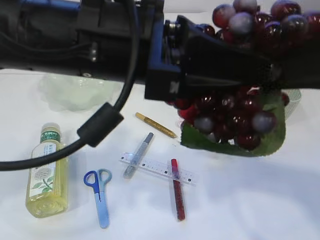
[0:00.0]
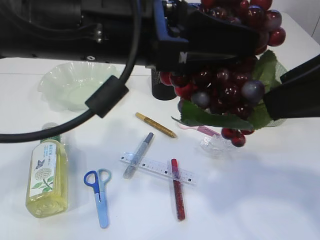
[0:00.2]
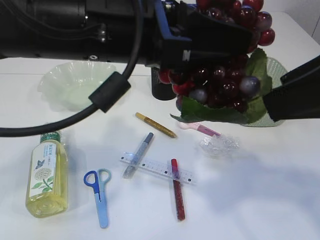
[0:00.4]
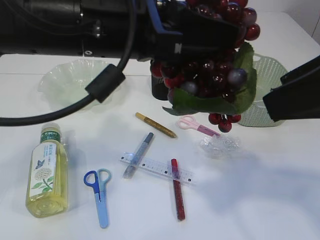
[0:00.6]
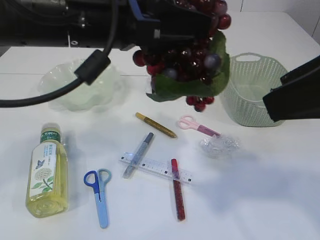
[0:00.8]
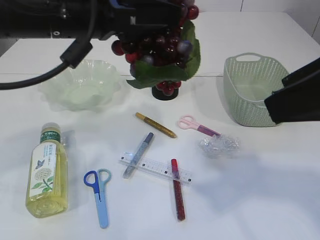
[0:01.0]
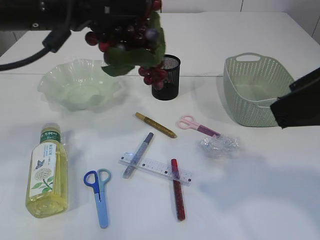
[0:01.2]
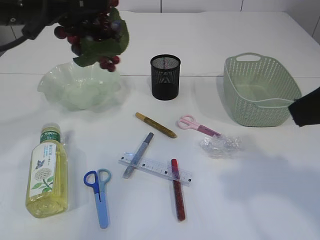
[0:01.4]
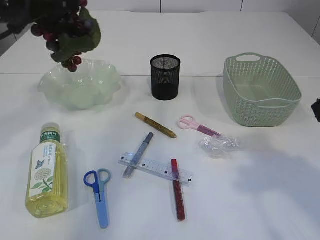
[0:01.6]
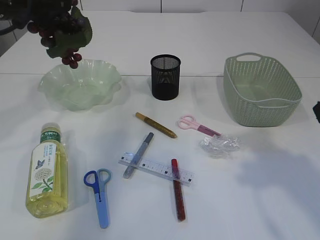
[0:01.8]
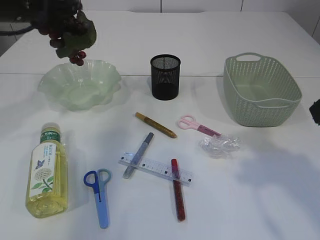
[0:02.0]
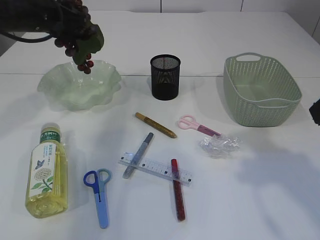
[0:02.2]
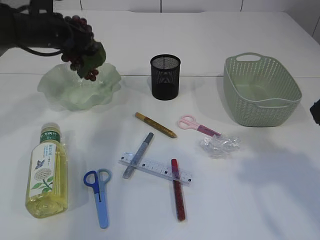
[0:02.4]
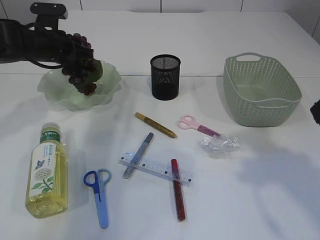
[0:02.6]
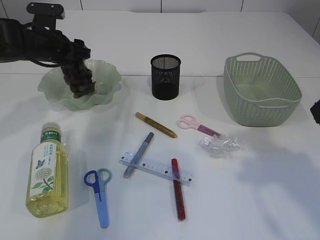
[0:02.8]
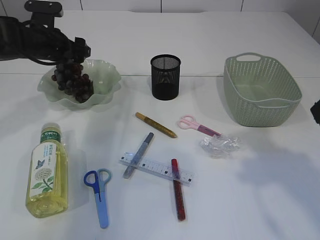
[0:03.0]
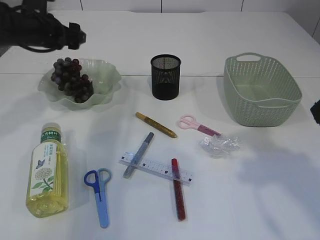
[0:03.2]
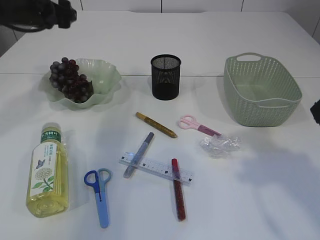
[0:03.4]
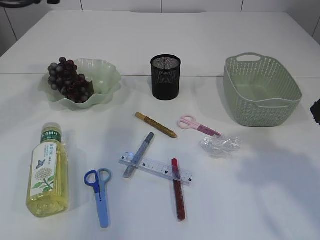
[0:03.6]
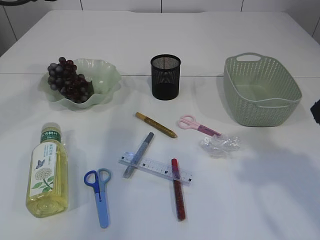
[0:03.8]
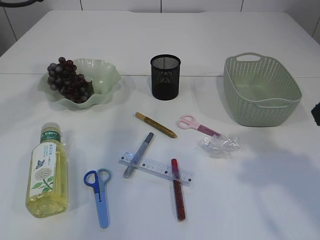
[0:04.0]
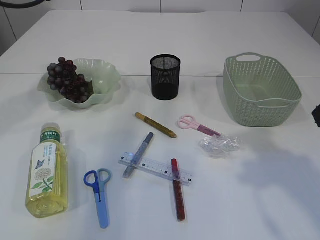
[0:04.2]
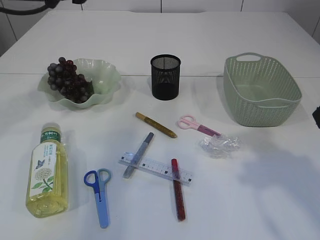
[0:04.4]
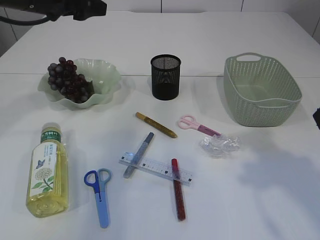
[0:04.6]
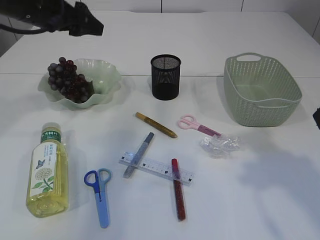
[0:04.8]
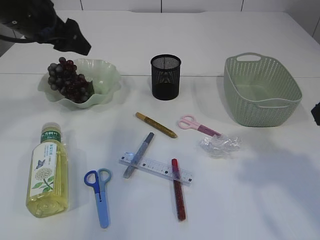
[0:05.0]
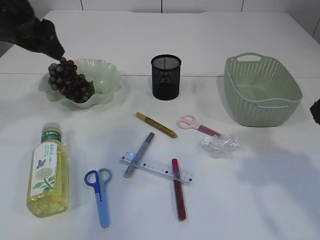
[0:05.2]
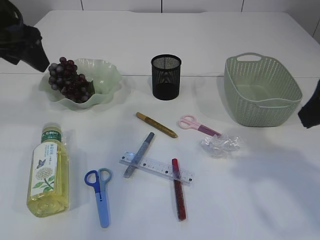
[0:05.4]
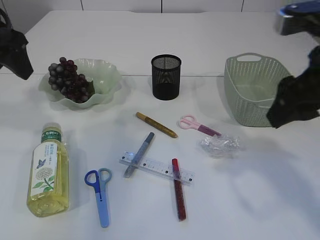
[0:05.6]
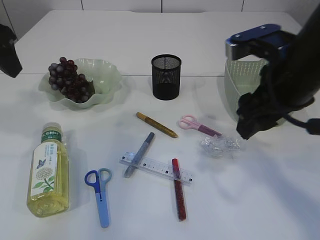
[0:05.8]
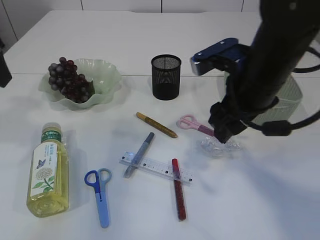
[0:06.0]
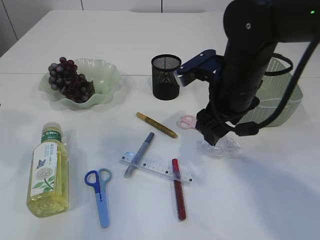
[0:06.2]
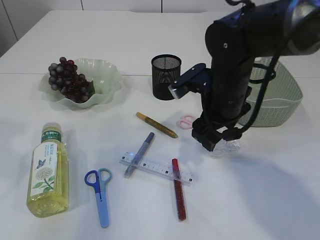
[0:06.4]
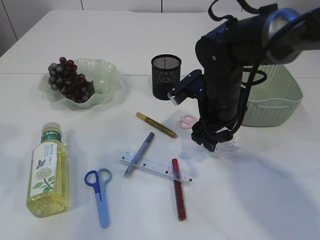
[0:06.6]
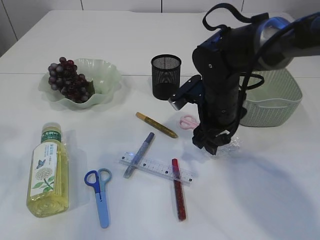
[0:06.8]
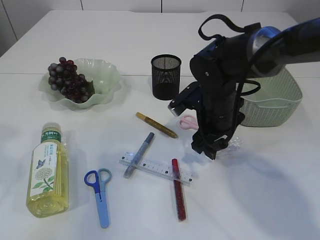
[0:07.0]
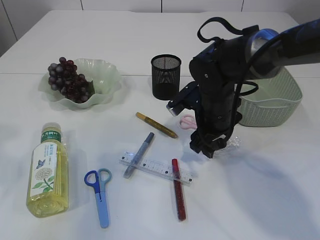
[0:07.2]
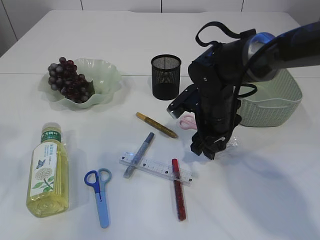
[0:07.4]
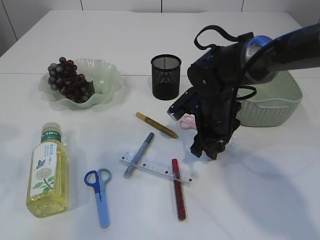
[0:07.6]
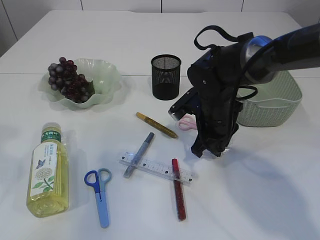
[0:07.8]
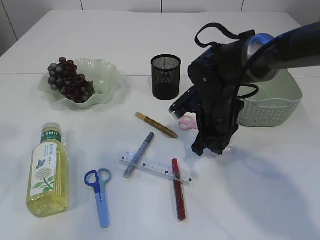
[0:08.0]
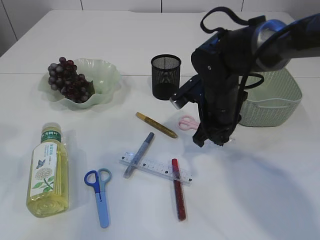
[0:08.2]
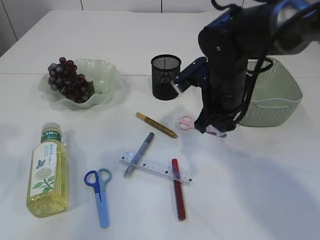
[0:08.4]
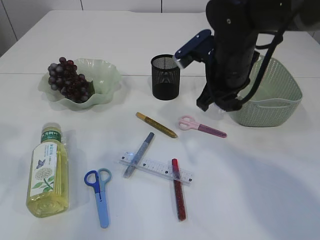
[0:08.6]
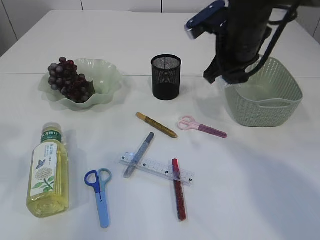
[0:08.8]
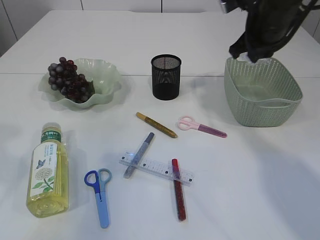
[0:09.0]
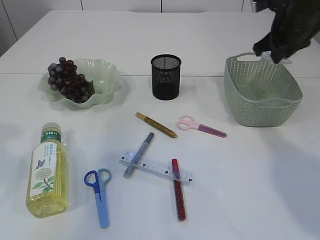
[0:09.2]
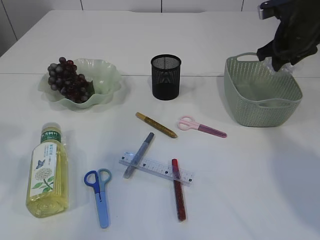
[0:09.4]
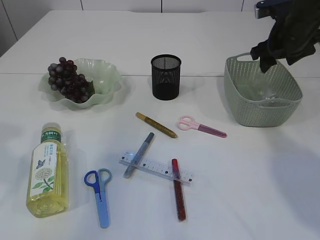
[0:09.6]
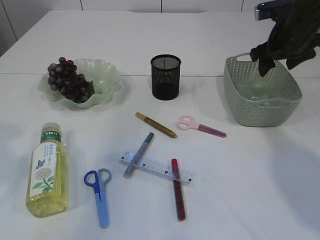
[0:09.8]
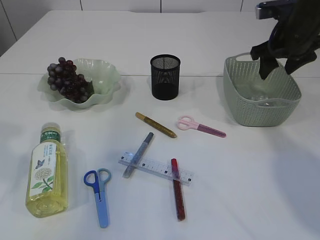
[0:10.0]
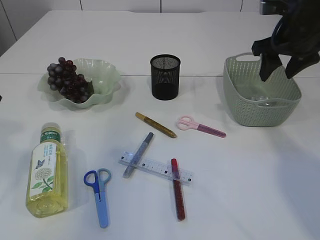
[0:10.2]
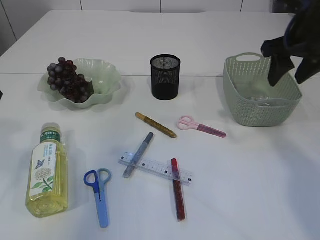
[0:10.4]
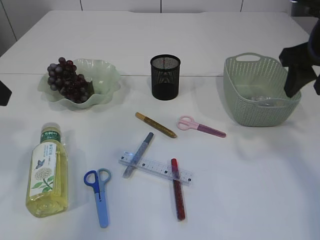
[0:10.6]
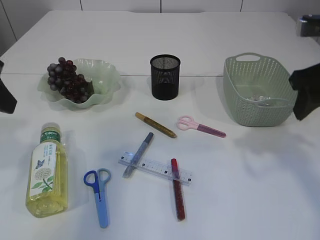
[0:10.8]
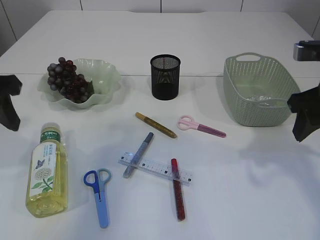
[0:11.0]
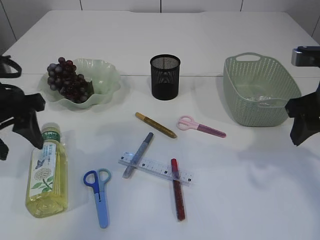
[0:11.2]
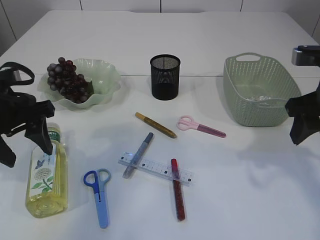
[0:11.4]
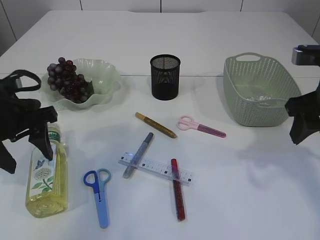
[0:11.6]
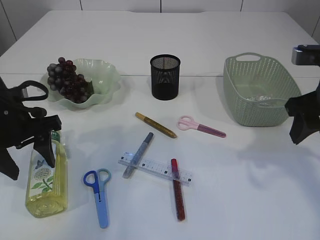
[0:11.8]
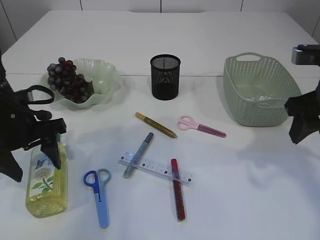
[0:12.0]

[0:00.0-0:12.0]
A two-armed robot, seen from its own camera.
Step, 1.0 to 3.2 s: Place the grapes in the plate.
Step, 3.4 to 8.6 s: Pick up the plastic.
Step, 8.8 to 11.0 s: Place the plastic in the basket.
0.0 to 1.6 s: The left gripper goes about 20 cm to the left and forward.
1.6 to 3.0 s: The left gripper shifts about 20 cm forward and downward, and opens its fingers.
3.0 to 4.4 s: The left gripper moves upward and backward, some 15 cm.
4.4 to 6.0 s: The left gripper is displaced backward by some 15 cm. Meanwhile the right gripper moves forward, to the left and downward, roughly 15 cm.
6.0 to 7.6 s: The left gripper goes about 10 cm backward, while the right gripper moves downward and forward, approximately 15 cm.
7.6 to 9.0 s: The right gripper moves upward and to the right, roughly 20 cm, and closes up.
9.0 to 10.4 s: The right gripper heads to the right, covering some 5 cm, and opens.
10.4 to 12.0 s: The left gripper is displaced downward and forward by about 20 cm. Meanwhile the right gripper goes some 10 cm backward.

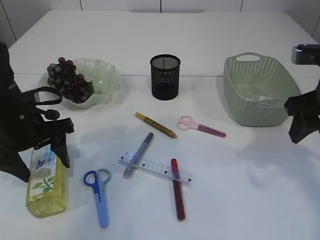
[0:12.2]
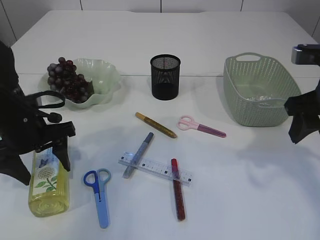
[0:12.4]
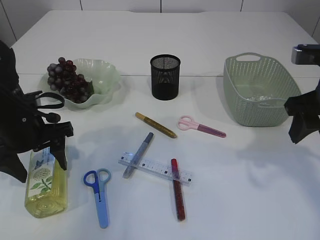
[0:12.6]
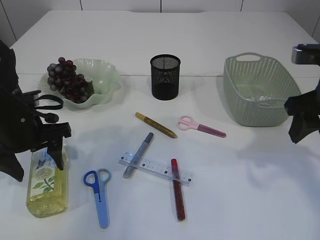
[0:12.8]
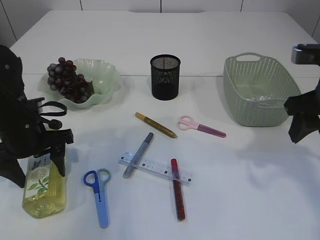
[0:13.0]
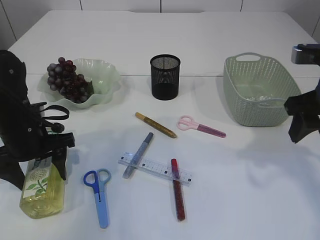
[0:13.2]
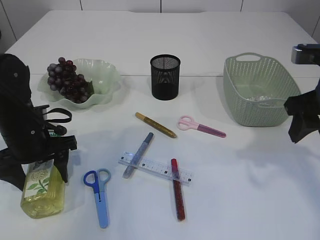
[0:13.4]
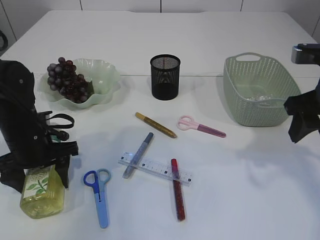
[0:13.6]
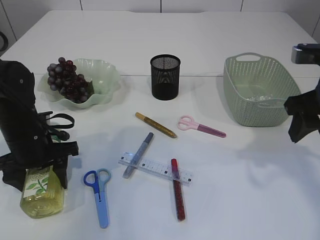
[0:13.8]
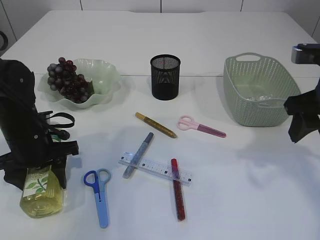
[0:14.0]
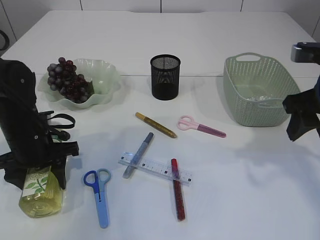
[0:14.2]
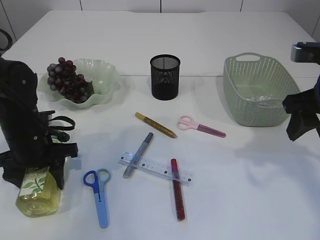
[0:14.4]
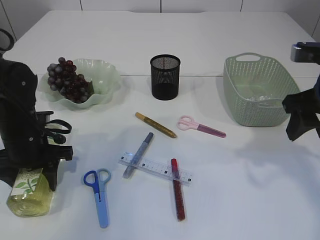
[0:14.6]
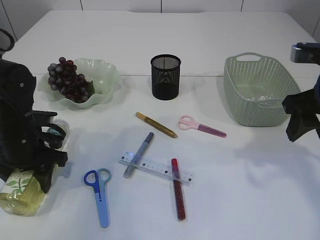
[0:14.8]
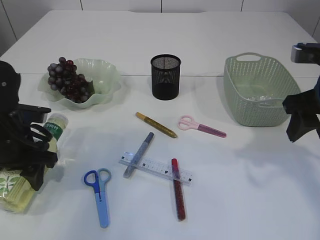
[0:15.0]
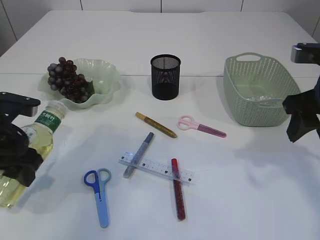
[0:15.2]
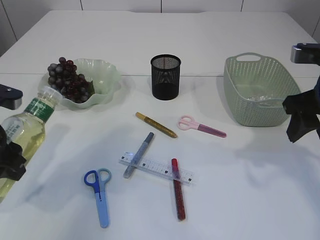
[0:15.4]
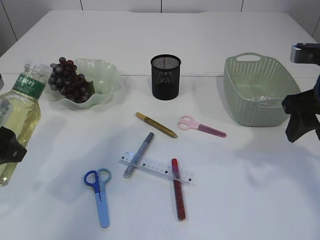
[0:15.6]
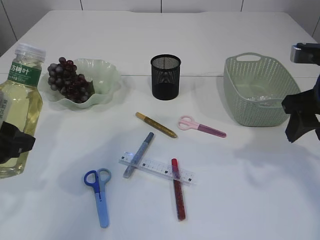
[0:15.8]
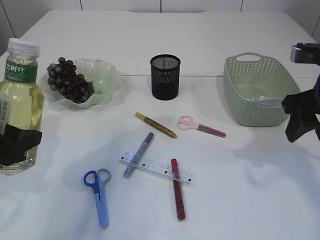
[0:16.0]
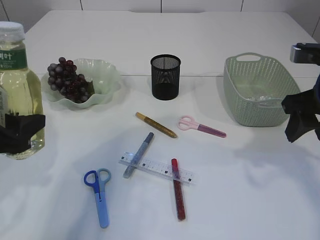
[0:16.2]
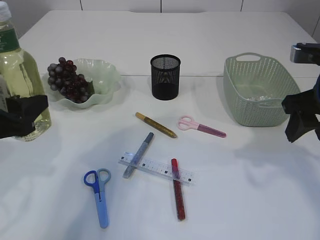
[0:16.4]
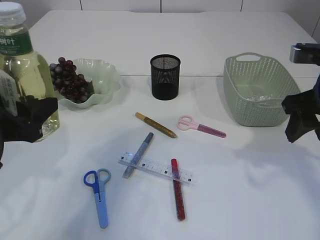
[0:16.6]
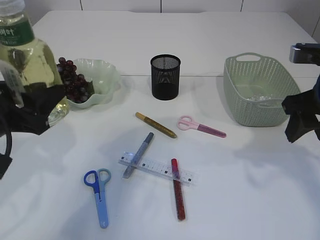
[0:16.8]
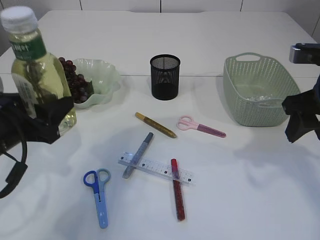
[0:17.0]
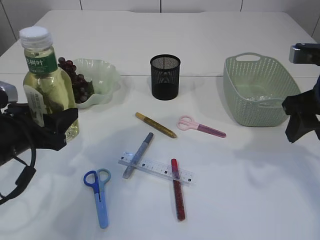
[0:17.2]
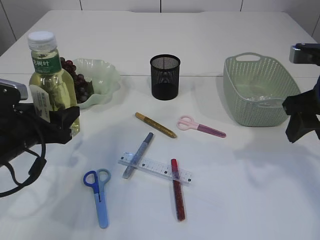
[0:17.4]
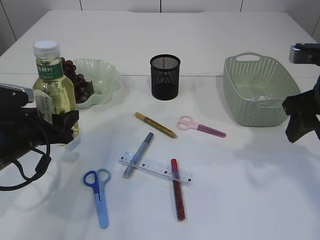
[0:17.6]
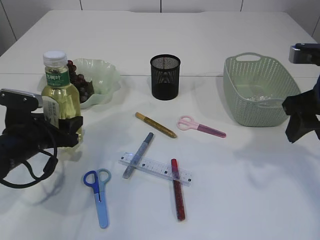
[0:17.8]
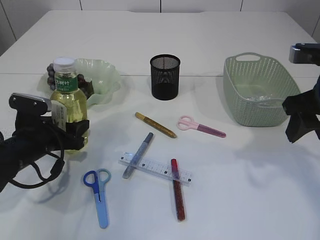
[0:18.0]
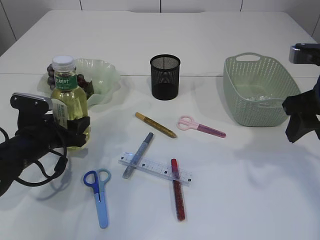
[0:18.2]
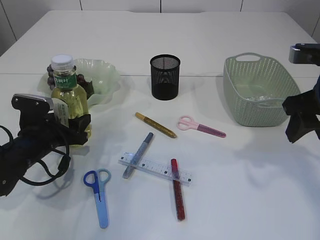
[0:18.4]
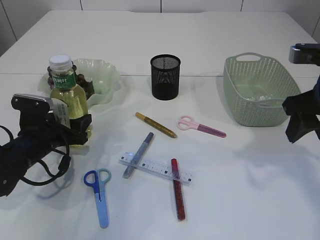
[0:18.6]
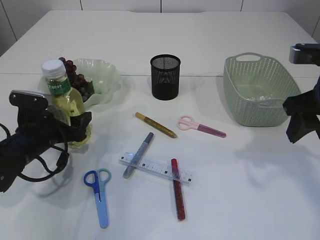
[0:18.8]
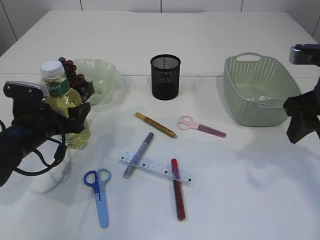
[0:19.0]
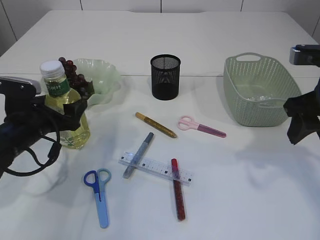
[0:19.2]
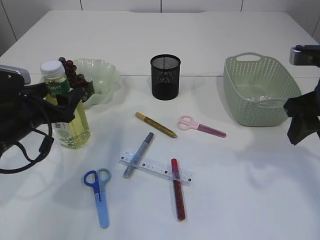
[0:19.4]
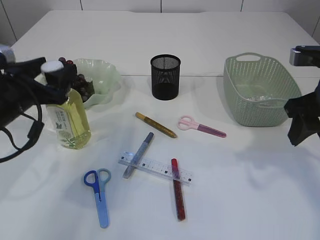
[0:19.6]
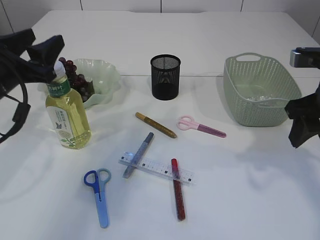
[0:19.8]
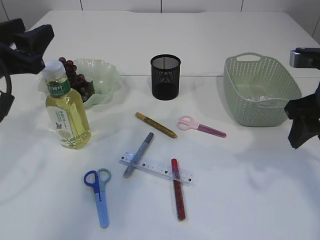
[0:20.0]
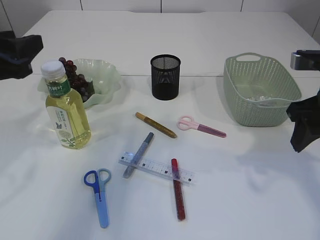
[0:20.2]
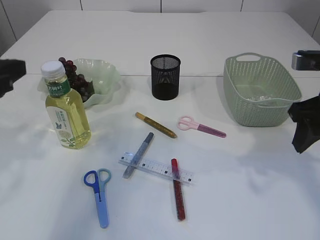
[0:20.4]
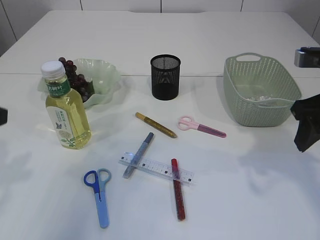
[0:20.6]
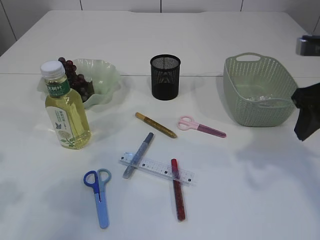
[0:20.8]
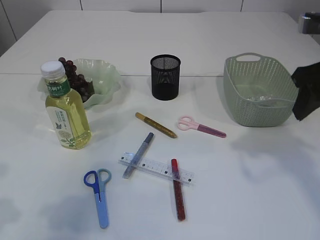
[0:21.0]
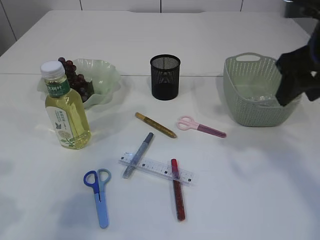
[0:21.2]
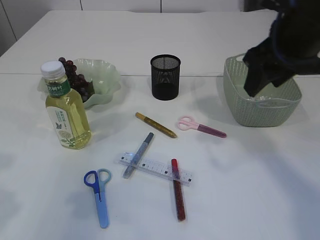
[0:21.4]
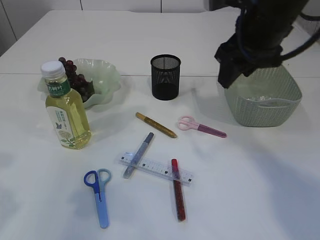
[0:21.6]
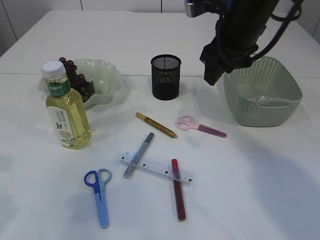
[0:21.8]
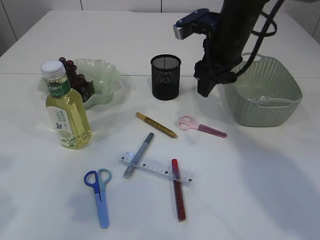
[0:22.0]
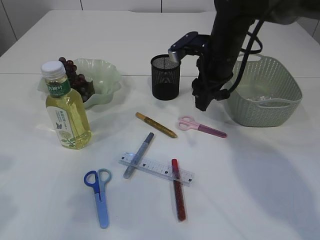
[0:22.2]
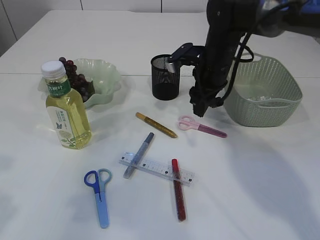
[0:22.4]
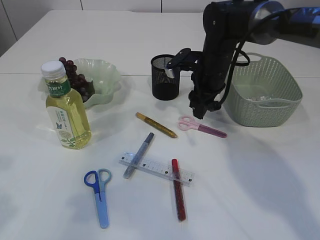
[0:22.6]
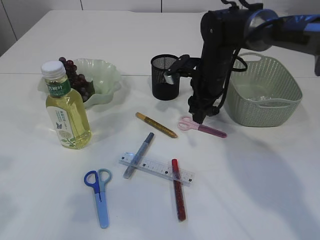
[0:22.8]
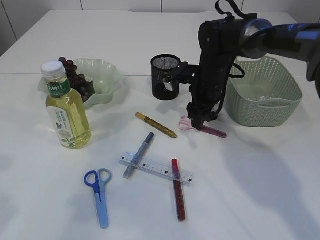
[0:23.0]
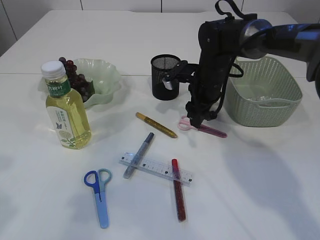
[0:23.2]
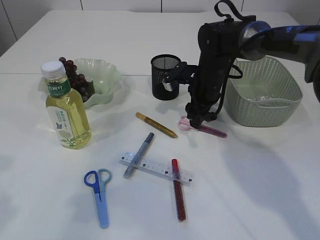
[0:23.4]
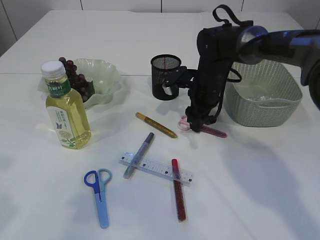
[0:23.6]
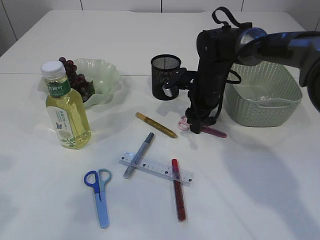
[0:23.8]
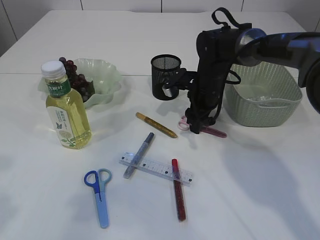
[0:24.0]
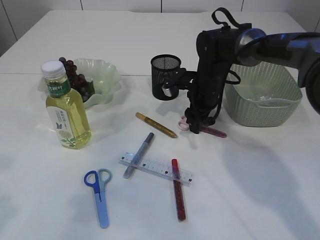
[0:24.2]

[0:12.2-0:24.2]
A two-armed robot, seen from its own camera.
Step, 12.2 to 15.2 s: Pick up the bottle with the left arm.
Step, 15.4 to 19.8 s: Place the bottle.
12.2 to 13.8 s: The left gripper travels downward by approximately 5 cm.
13.8 to 15.2 s: The left gripper changes place by some 5 cm.
15.2 to 16.6 s: The left gripper shifts by some 5 cm.
16.6 to 18.2 s: The left gripper shifts roughly 15 cm downward and forward.
18.2 to 19.8 s: The left gripper heads upward, covering approximately 15 cm.
19.8 to 21.2 s: The right gripper travels upward by some 5 cm, while the left gripper heads backward, covering some 15 cm.
21.2 to 22.6 s: The right gripper is displaced forward, downward and to the left by some 25 cm.
22.6 to 24.2 s: The right gripper travels downward by approximately 5 cm.
